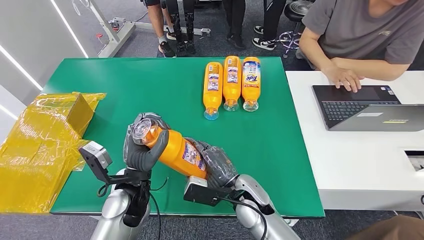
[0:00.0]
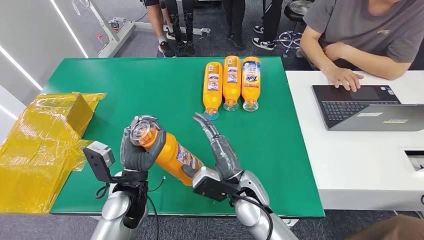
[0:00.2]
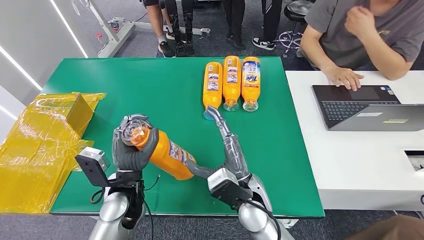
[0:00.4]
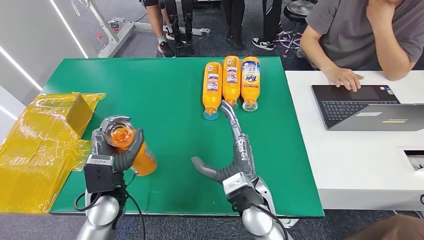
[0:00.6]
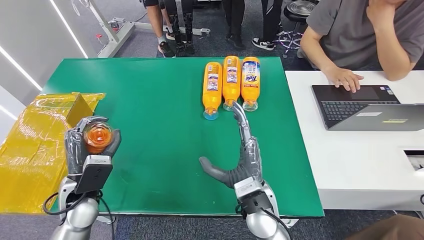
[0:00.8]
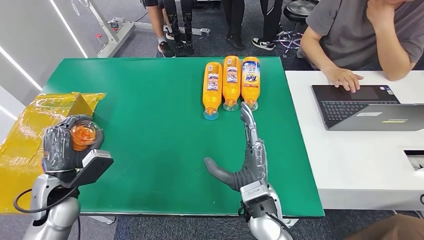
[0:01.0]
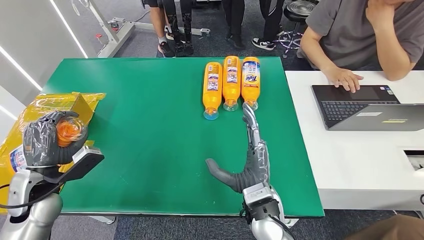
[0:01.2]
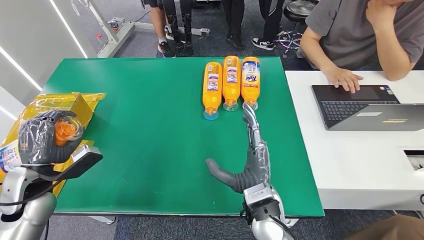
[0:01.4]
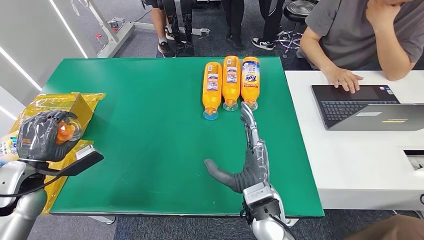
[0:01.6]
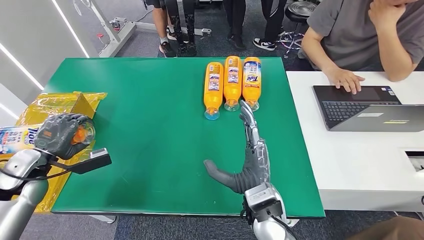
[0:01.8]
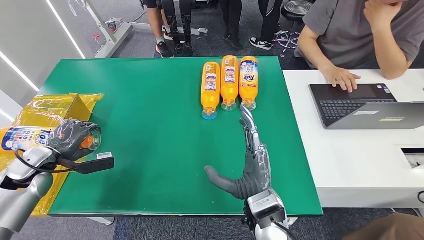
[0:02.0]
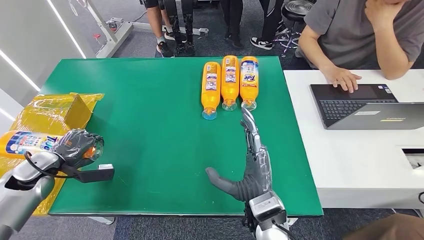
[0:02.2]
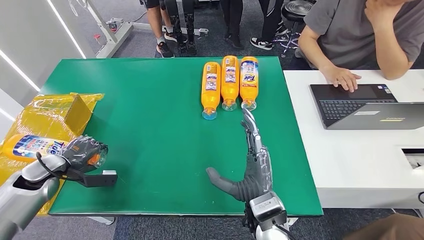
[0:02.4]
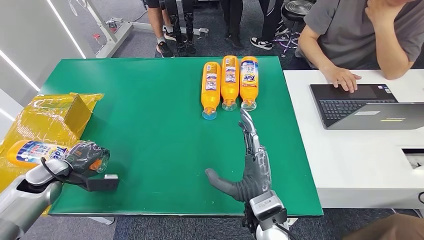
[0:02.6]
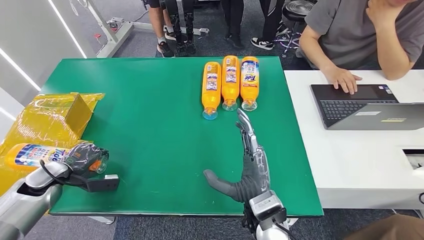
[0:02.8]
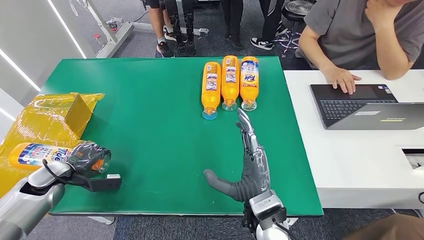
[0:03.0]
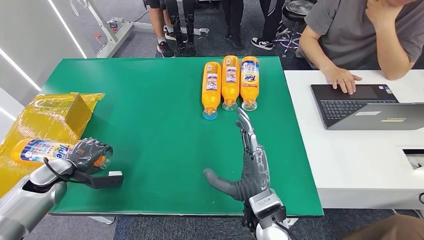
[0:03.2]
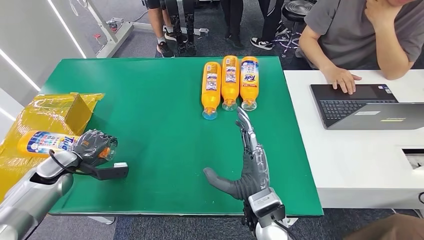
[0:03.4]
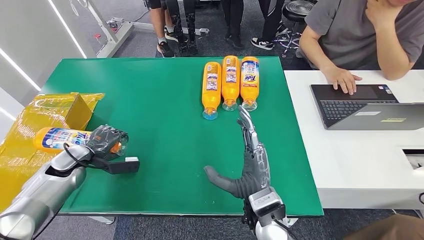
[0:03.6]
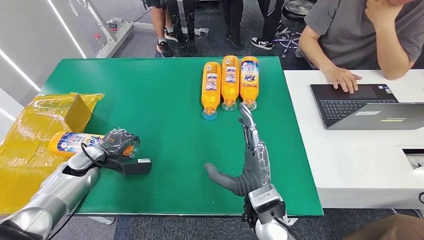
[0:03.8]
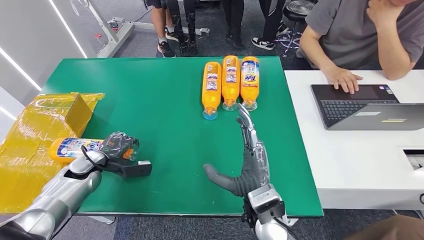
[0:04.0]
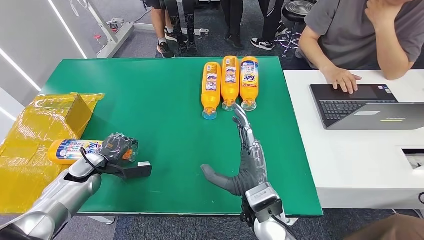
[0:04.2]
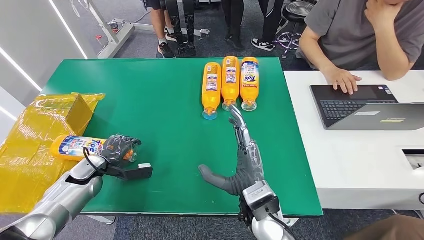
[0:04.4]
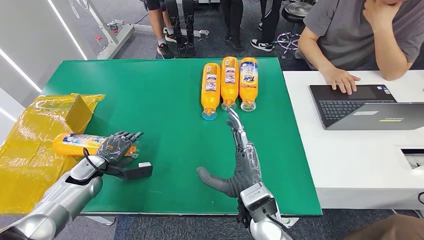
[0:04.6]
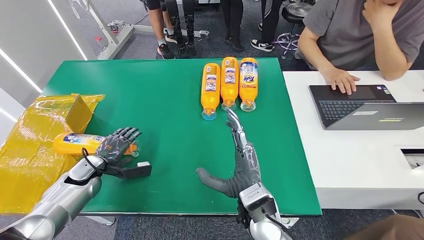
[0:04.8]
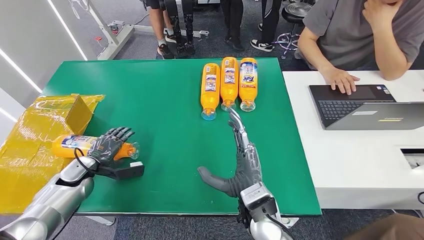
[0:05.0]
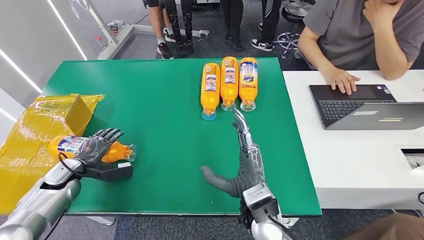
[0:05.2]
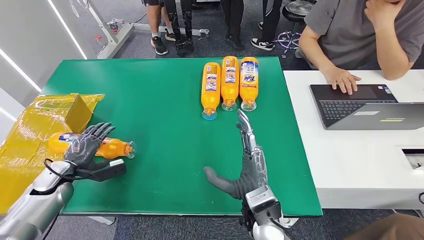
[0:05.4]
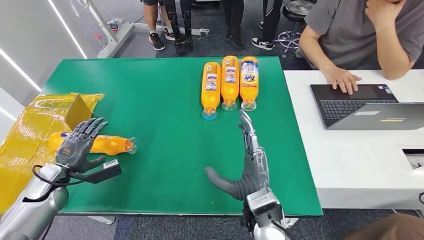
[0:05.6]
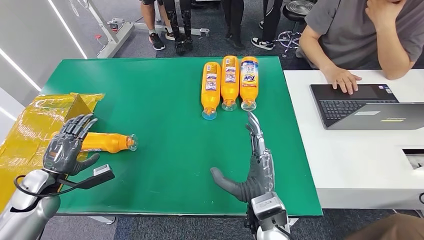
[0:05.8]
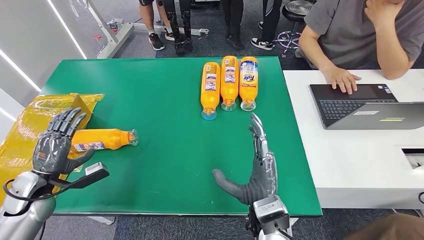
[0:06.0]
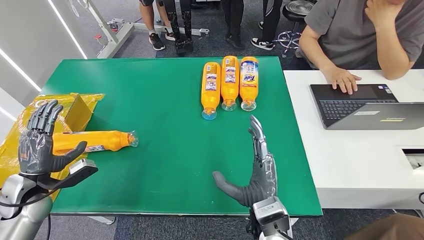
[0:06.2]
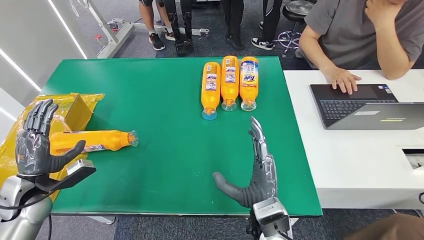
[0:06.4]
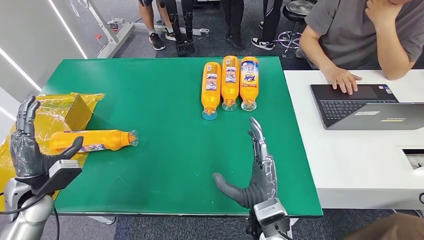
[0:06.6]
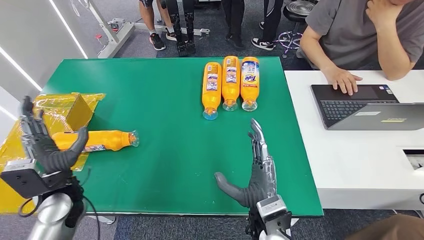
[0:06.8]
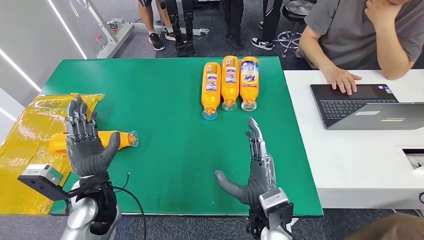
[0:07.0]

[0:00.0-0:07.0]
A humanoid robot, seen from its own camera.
Step, 0:00.0 to 0:07.0: Turn the bottle to the front side.
0:01.4 to 0:02.8: The left hand moves downward, to the left and forward, roughly 10 cm.
0:02.8 to 0:04.2: The left hand travels to the right by roughly 10 cm.
0:04.2 to 0:05.6: The left hand is displaced to the left and backward by some 10 cm.
0:05.6 to 0:07.0: The left hand moves to the right, approximately 20 cm.

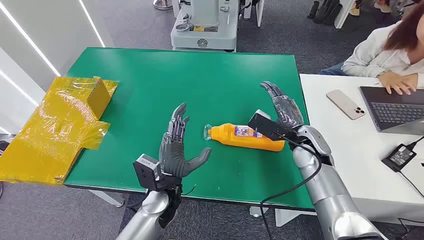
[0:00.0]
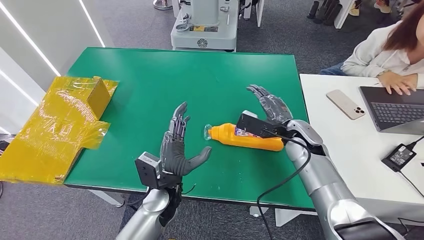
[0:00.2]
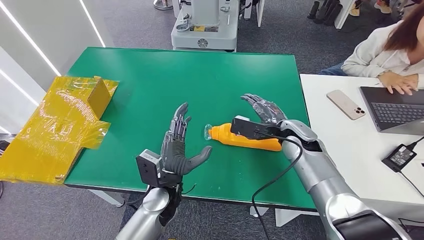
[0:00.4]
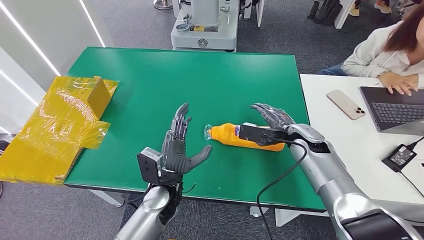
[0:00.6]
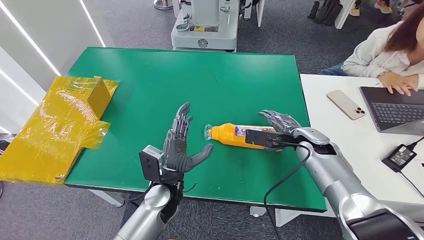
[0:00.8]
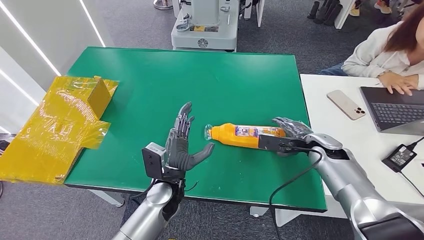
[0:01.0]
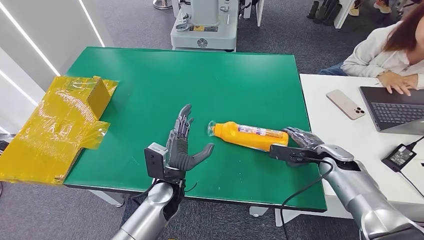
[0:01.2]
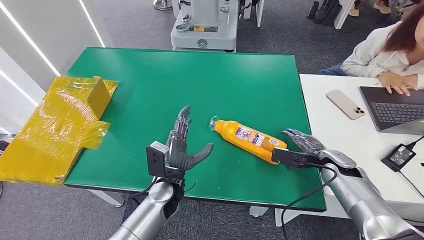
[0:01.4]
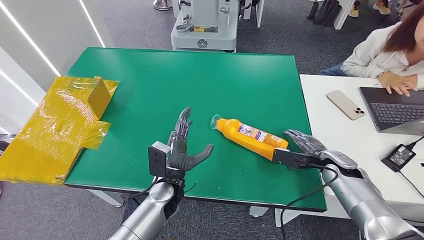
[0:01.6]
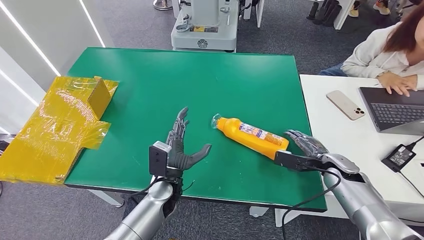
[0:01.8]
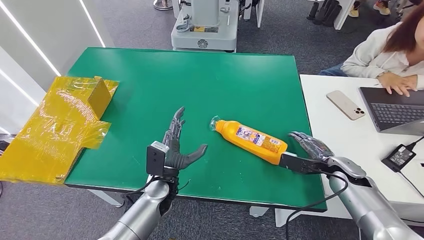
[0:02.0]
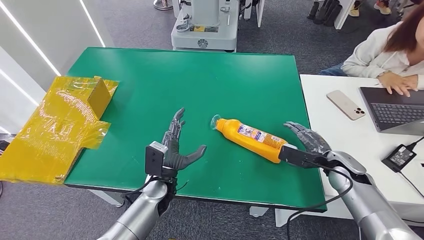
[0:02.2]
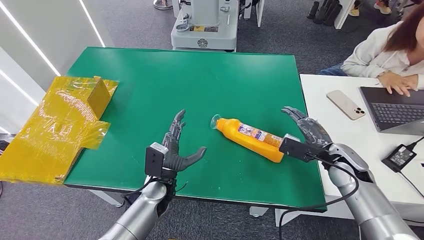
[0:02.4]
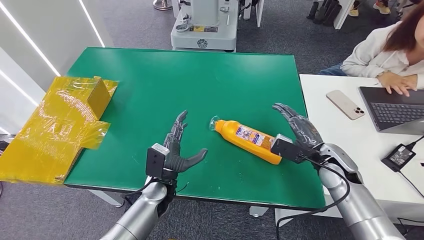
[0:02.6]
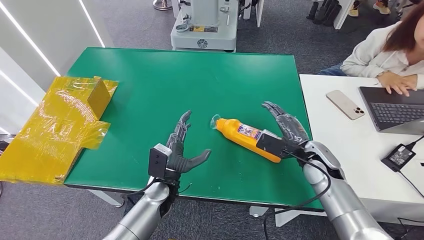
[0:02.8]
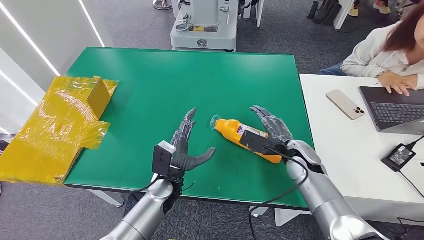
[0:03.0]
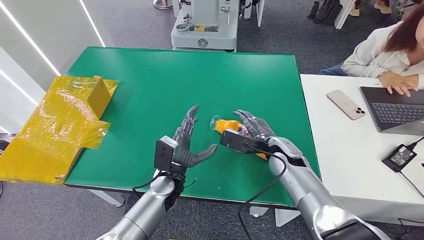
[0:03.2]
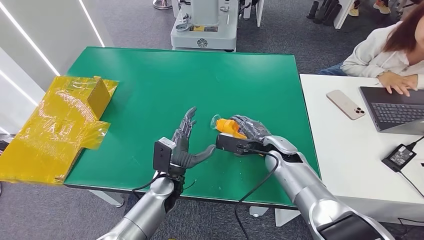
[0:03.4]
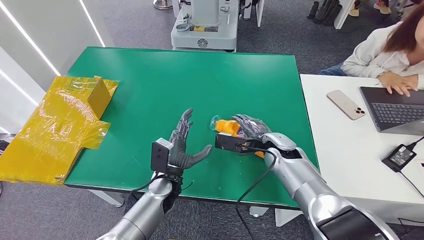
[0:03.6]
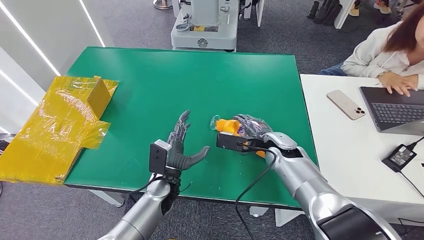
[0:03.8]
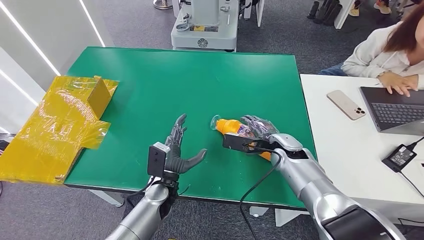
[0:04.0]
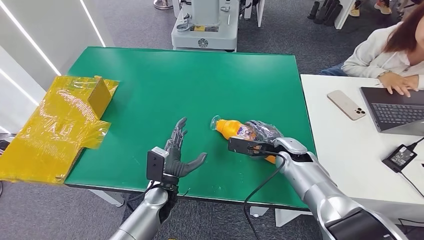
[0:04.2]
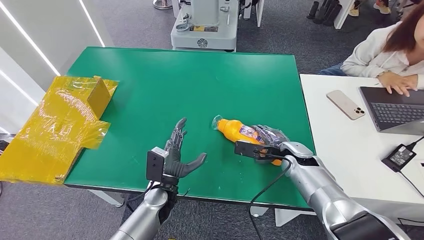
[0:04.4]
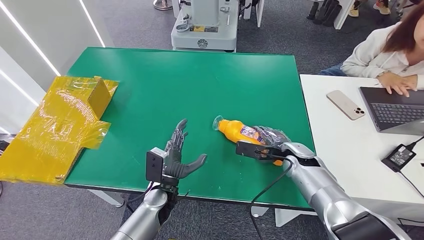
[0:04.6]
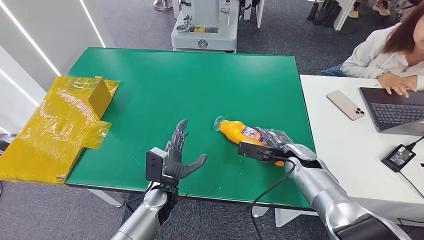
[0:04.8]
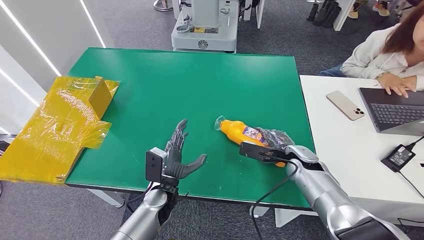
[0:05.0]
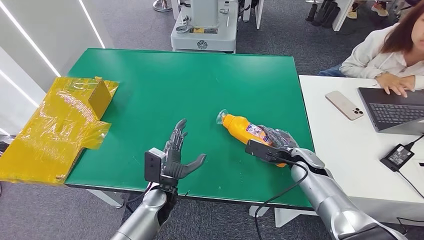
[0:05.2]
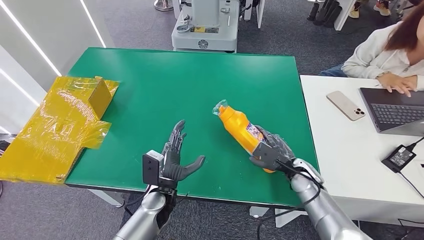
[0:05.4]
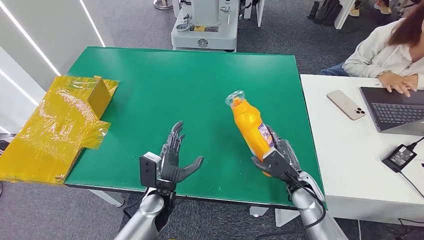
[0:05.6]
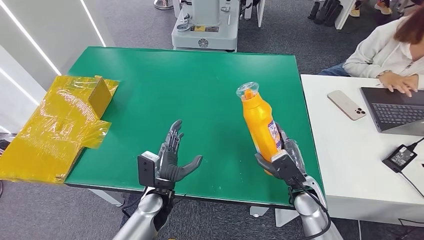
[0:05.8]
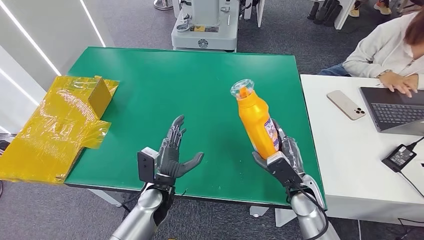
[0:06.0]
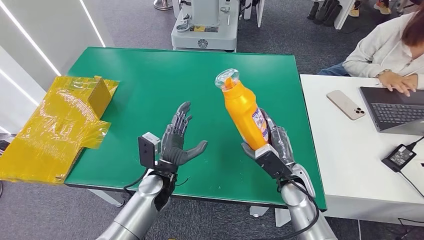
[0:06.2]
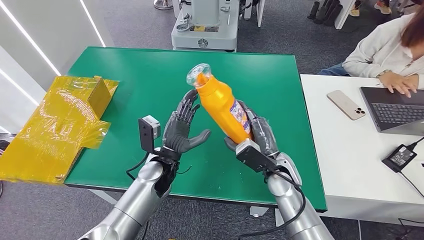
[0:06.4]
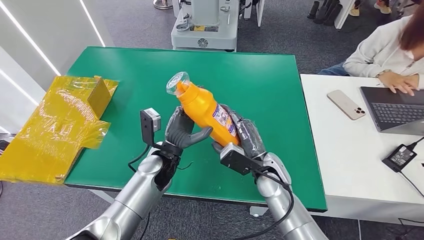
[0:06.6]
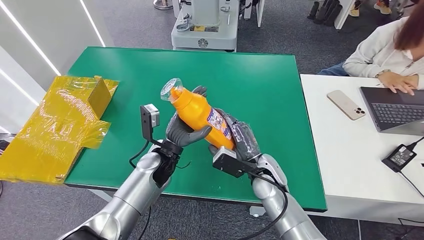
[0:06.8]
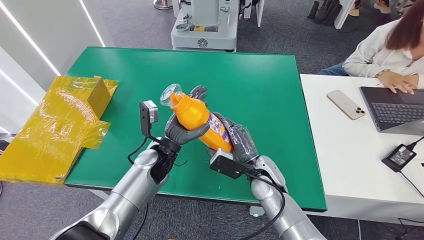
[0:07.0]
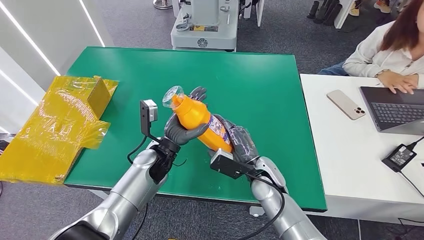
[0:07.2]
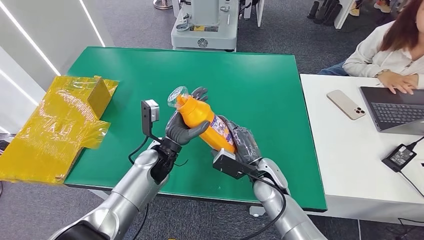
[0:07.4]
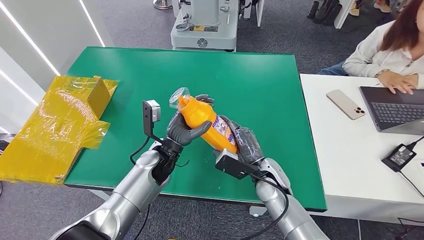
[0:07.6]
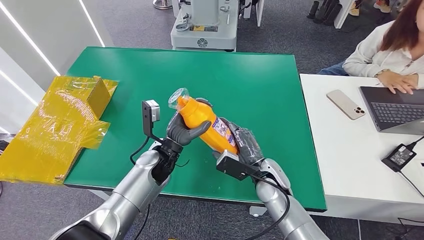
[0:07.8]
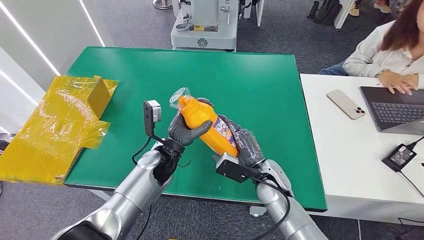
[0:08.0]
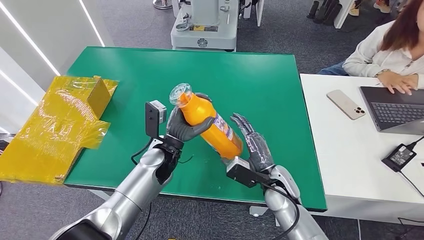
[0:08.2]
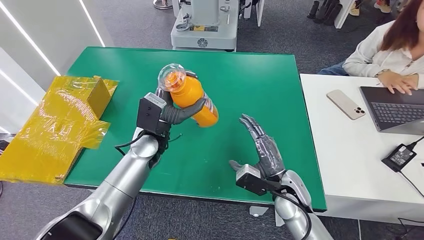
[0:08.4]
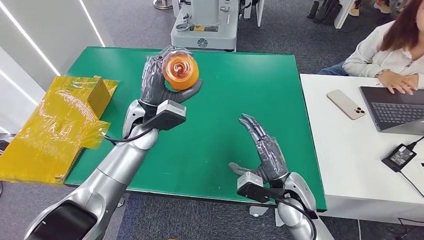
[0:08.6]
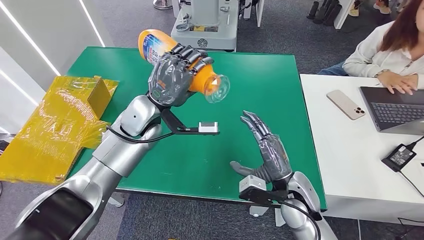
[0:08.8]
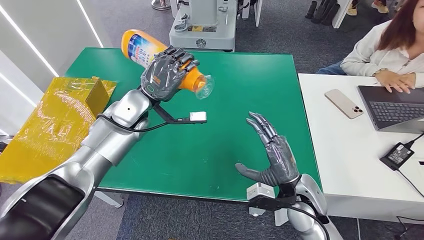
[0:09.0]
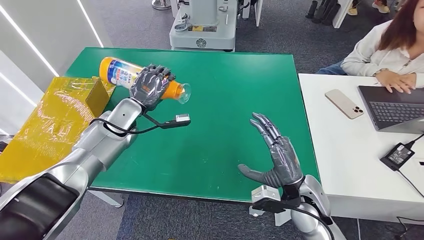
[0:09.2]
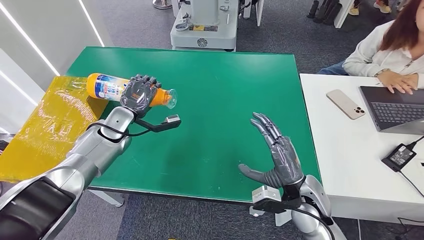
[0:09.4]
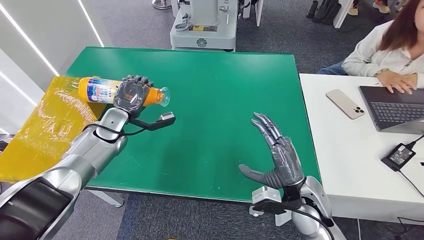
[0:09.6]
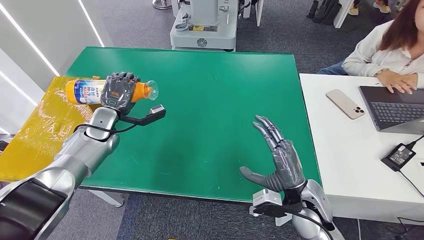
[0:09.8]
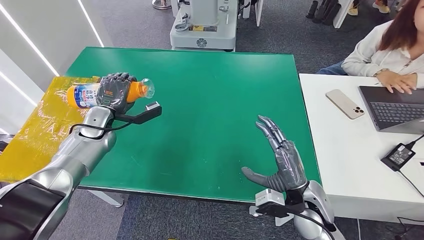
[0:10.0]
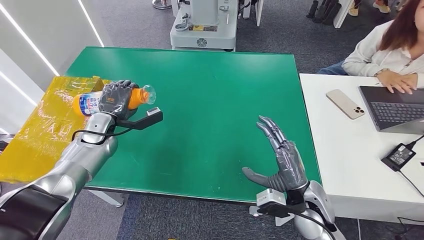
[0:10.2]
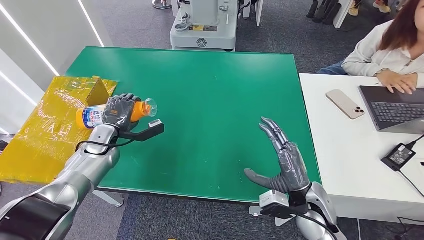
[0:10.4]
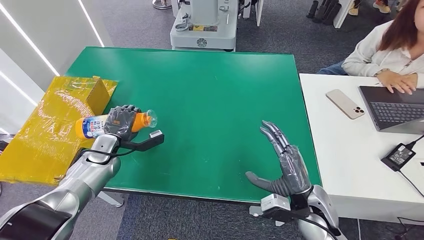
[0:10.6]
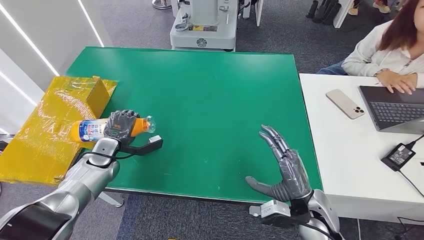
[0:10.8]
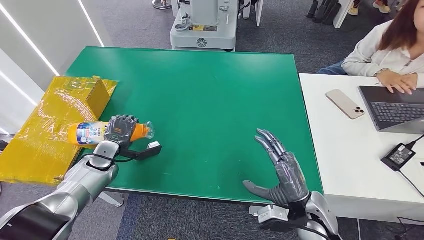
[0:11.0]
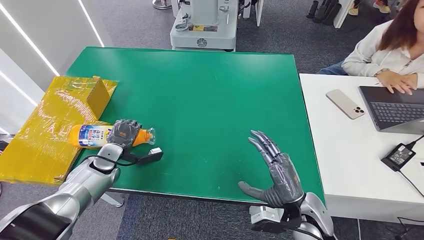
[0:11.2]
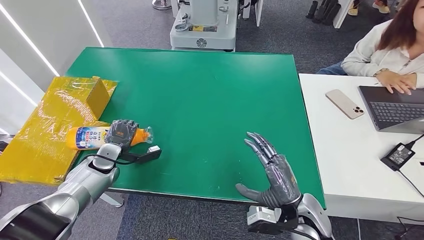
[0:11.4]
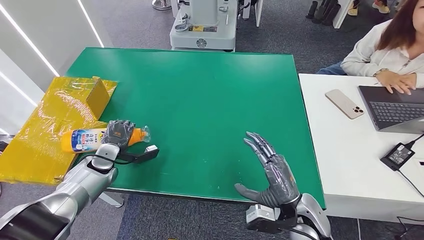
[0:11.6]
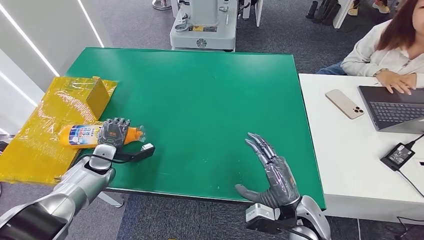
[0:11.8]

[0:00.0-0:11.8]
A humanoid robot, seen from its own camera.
Step, 0:00.0 to 0:06.0: Pick up the bottle from the table.
0:01.4 to 0:03.0: The right hand moves to the left, about 15 cm.
0:04.4 to 0:06.0: The right hand moves backward, some 10 cm.
0:06.0 to 0:07.4: The right hand heads to the left, covering approximately 10 cm, while the left hand is displaced forward and upward by approximately 10 cm.
0:10.4 to 0:11.8: The left hand goes about 5 cm downward.
